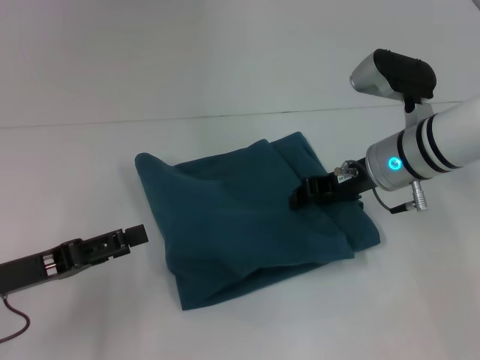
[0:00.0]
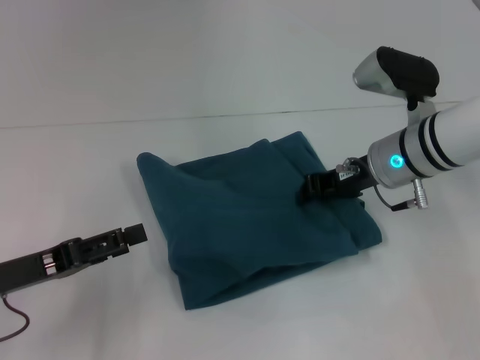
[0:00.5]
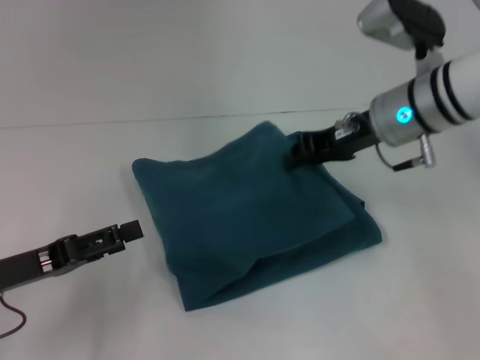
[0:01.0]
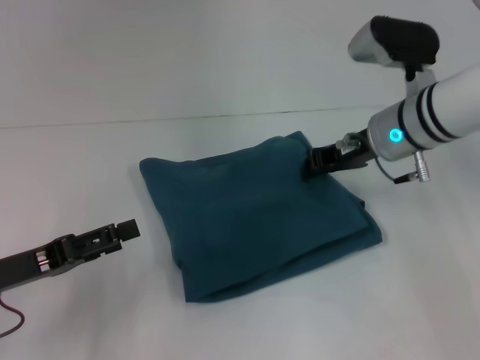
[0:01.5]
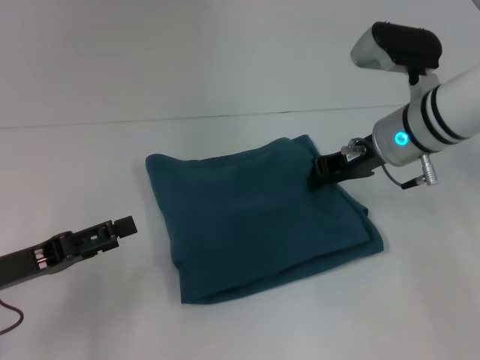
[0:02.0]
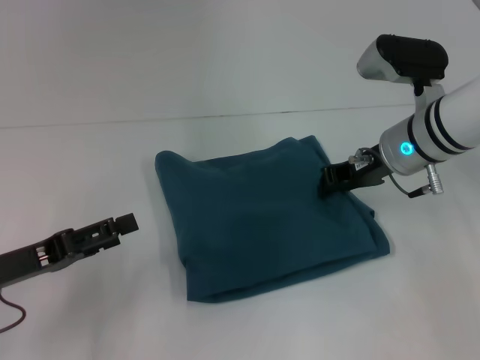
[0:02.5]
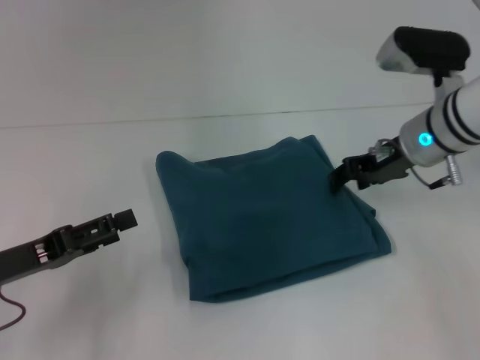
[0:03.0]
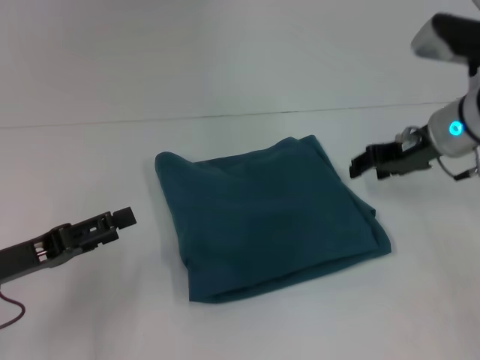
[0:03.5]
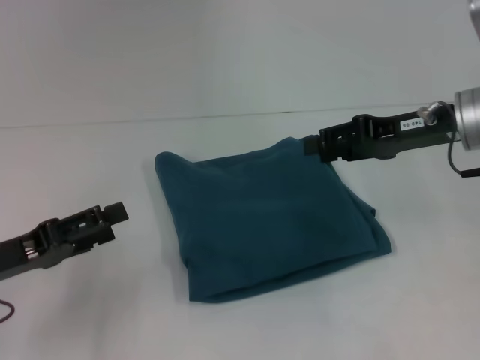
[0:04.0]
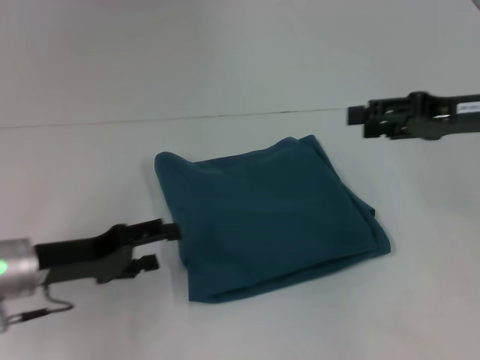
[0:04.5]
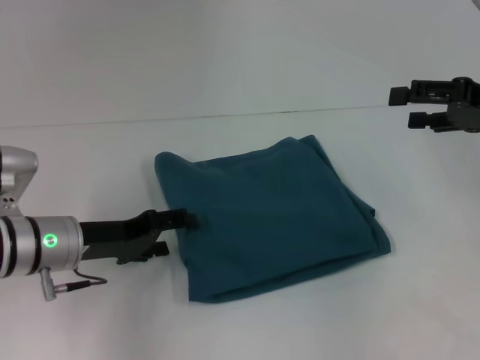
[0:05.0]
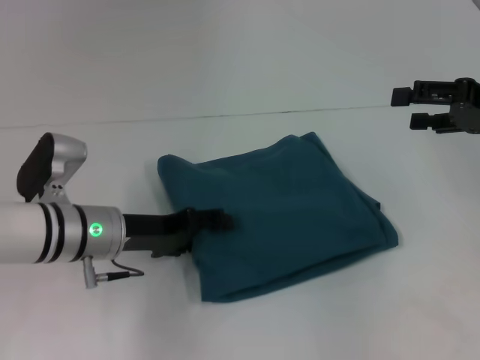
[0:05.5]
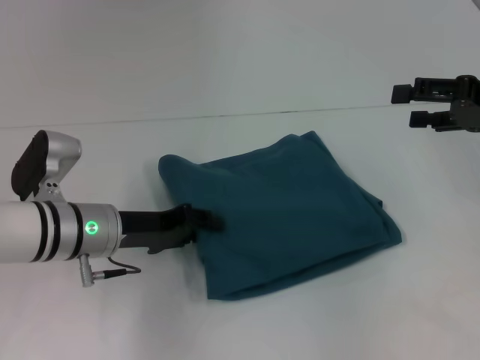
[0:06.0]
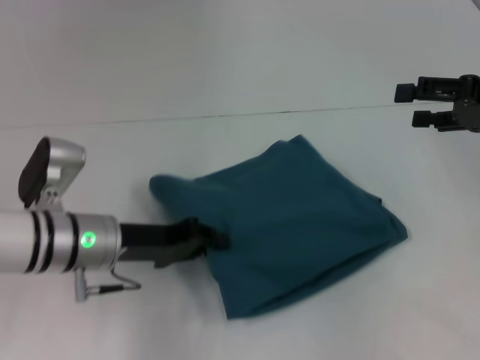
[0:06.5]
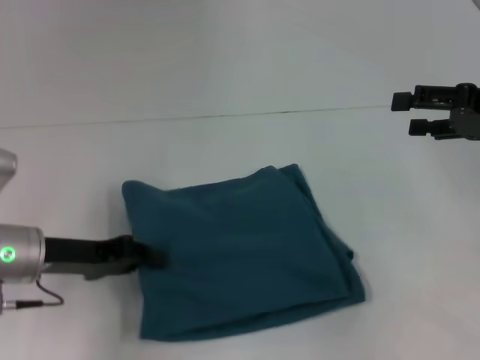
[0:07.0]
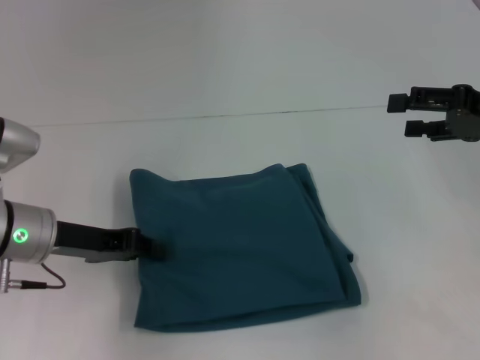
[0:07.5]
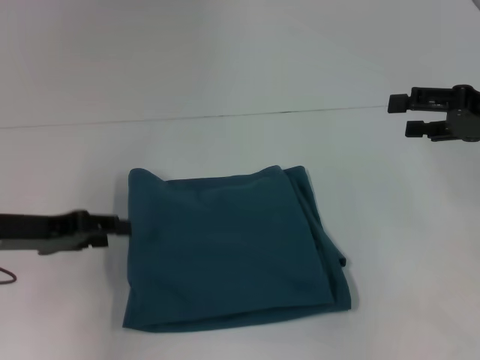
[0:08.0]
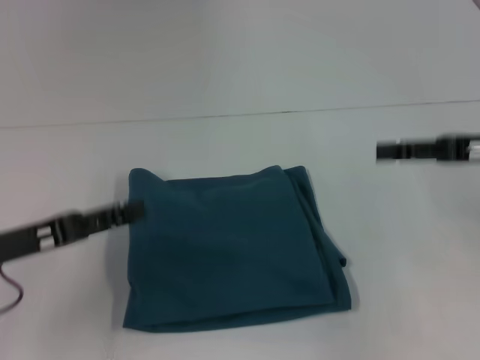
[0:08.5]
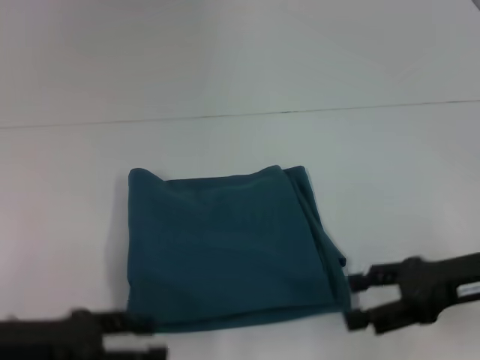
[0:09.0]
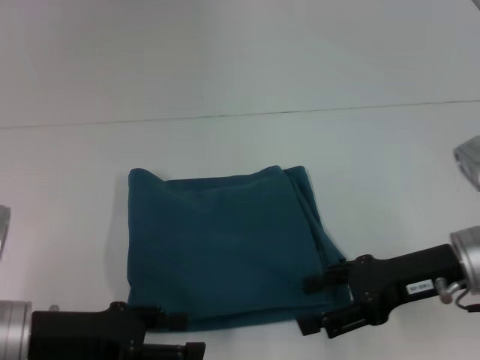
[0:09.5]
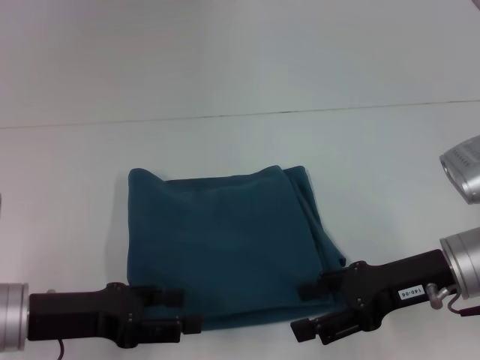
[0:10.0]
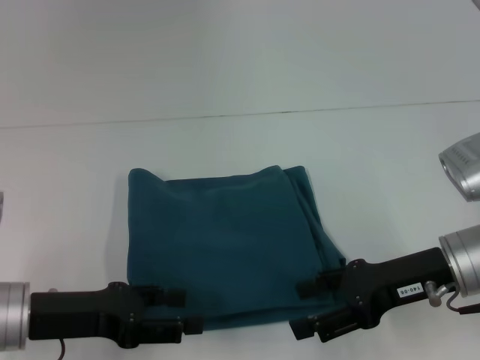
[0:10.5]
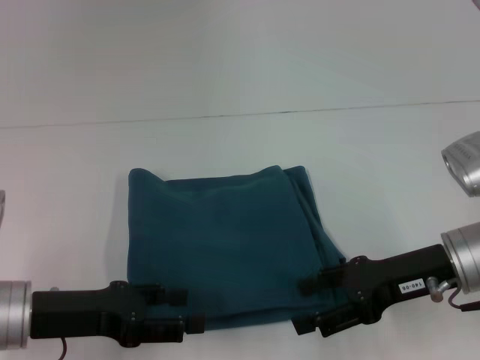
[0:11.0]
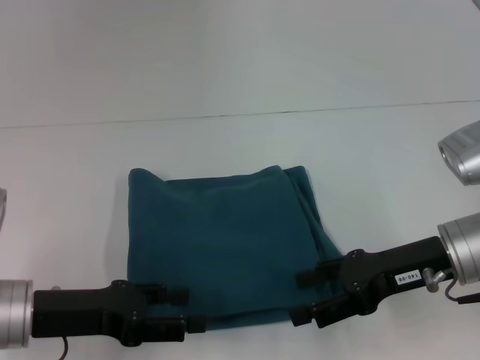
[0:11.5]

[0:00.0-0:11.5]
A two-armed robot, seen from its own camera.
0:00.0 to 0:02.0: The right gripper closes up.
0:02.0 to 0:04.0: The right gripper heads to the right, covering approximately 5 cm, and opens.
0:04.0 to 0:06.0: The right gripper shifts approximately 10 cm to the right, and opens; the left gripper is displaced to the right and forward by roughly 15 cm, and closes up.
0:06.0 to 0:07.5: The left gripper goes approximately 5 cm to the left, and closes its fingers.
0:07.5 to 0:09.5: The left gripper is displaced backward by approximately 10 cm, and opens. The right gripper goes some 15 cm to the left, downward and backward.
0:09.5 to 0:11.5: The two grippers keep their place.

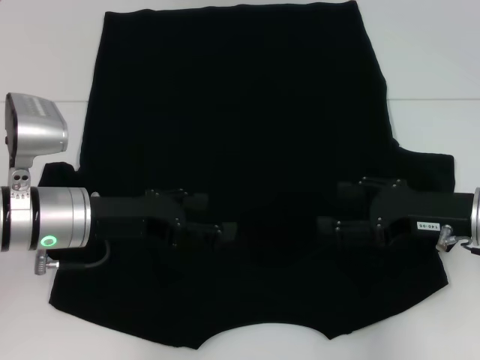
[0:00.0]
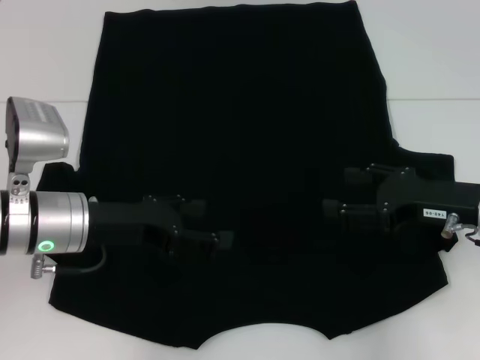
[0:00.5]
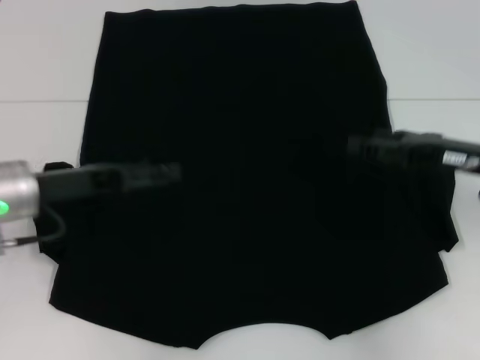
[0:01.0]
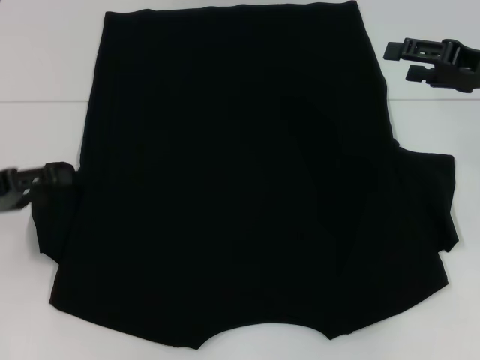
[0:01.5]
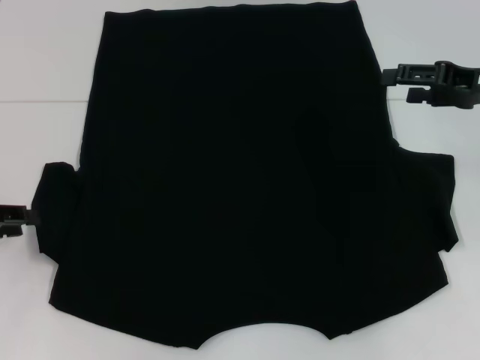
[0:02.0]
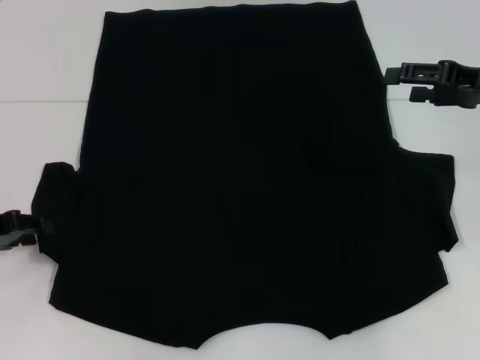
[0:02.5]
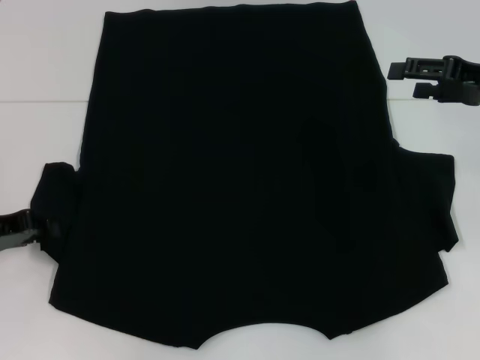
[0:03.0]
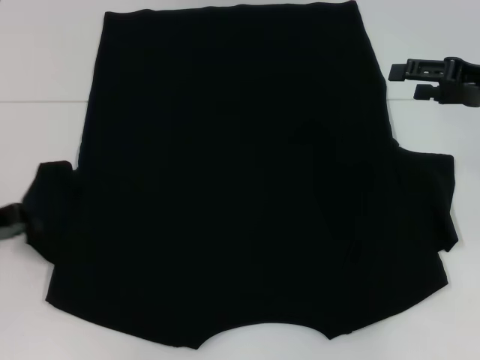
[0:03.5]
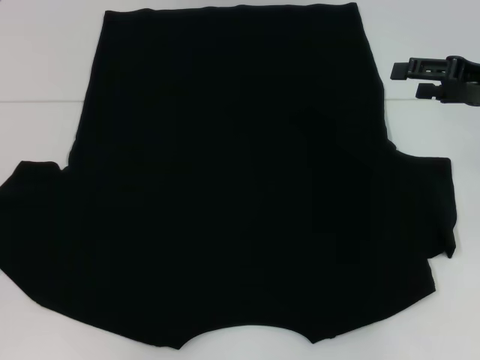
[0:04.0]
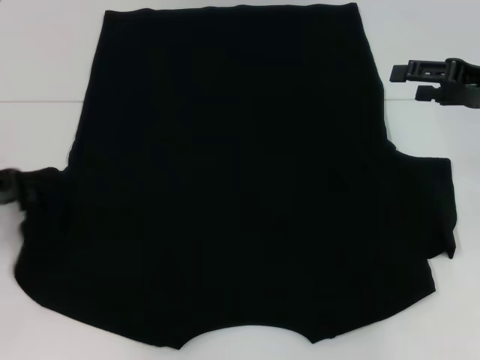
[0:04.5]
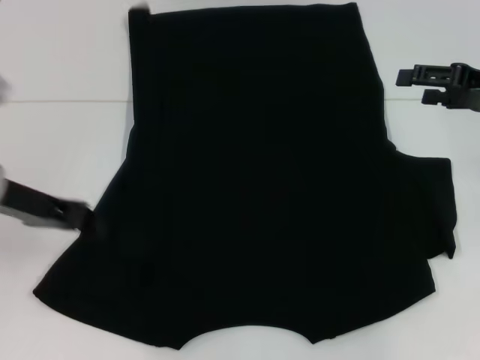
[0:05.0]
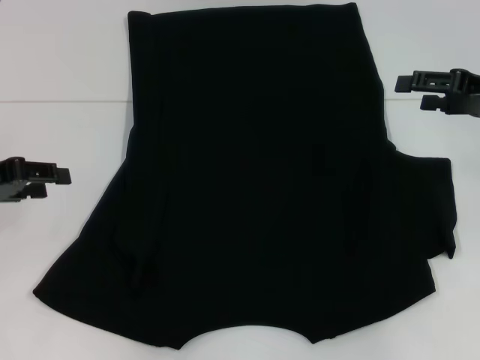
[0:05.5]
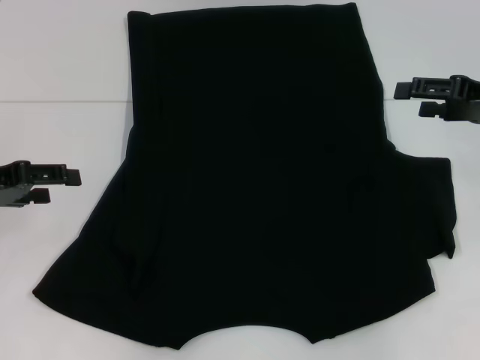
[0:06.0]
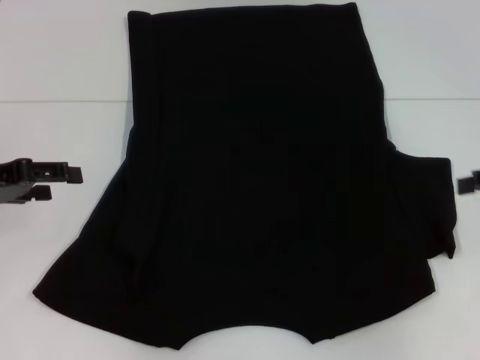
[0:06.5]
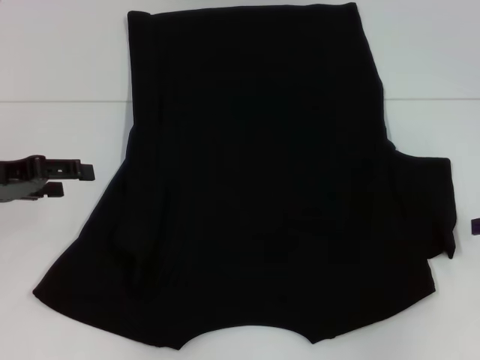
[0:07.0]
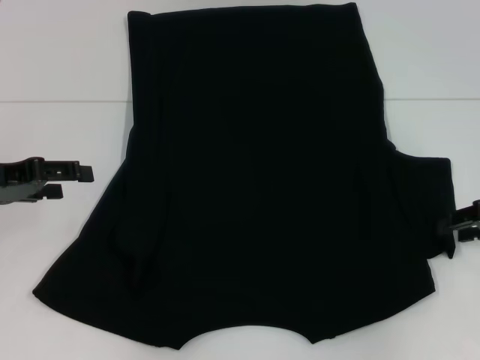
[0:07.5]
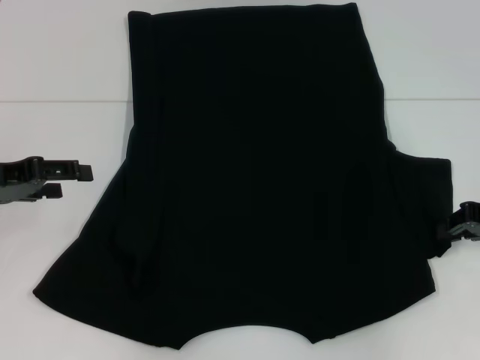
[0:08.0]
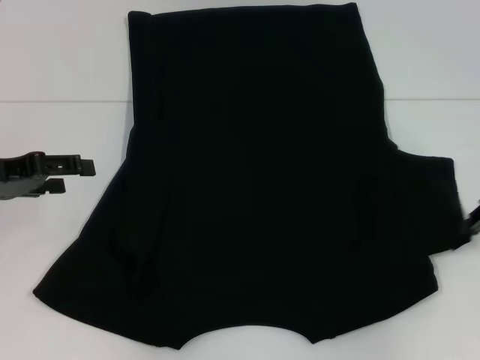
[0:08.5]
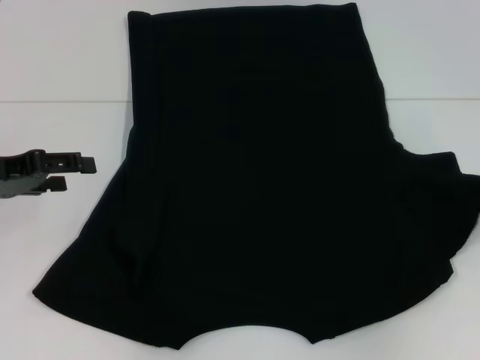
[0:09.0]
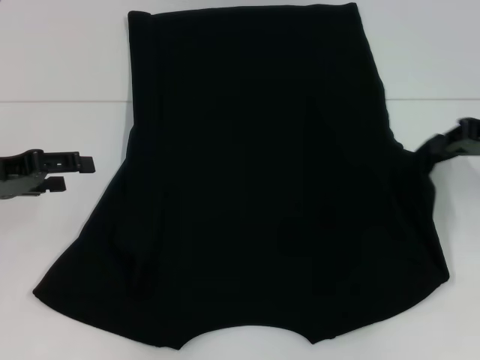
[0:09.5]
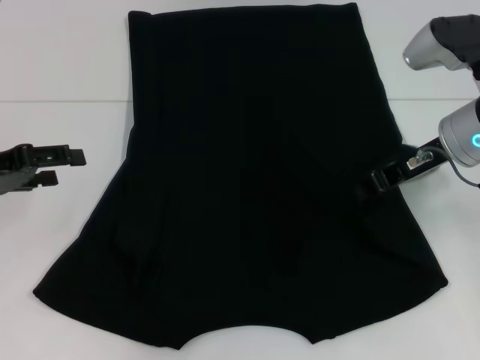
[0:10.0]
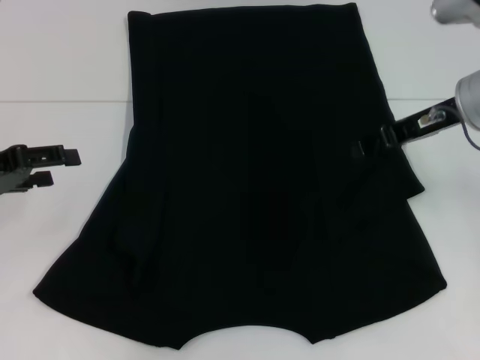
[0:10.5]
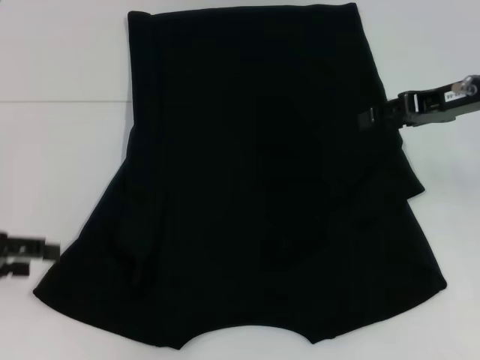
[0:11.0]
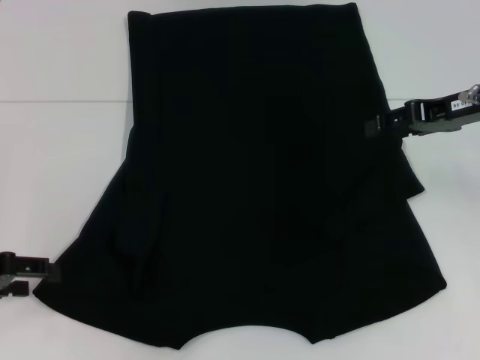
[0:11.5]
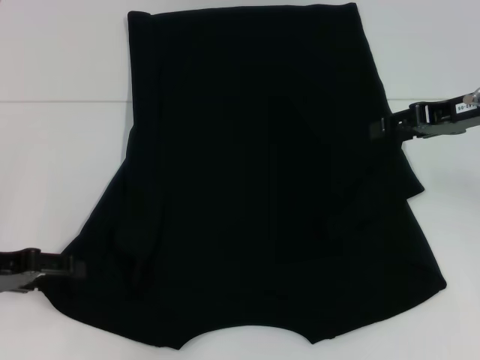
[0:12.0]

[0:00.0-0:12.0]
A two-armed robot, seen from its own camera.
Step, 0:00.0 to 0:05.0: Fold the bottom left sleeve with your left hand.
Step, 0:05.5 to 0:10.0: Fold the bottom right sleeve with your right hand.
0:00.0 to 0:02.0: The right gripper moves upward and forward, some 10 cm. Meanwhile the left gripper heads to the left, covering some 15 cm, and closes its fingers.
0:02.0 to 0:04.0: The left gripper closes its fingers.
0:04.0 to 0:06.0: The left gripper shifts roughly 5 cm to the right, and opens up.
0:06.0 to 0:08.0: The right gripper goes roughly 5 cm downward, and closes up.
0:08.0 to 0:10.0: The right gripper goes approximately 15 cm to the left and upward.
0:10.0 to 0:12.0: The right gripper moves to the right, roughly 5 cm, and opens; the left gripper changes place by roughly 5 cm.

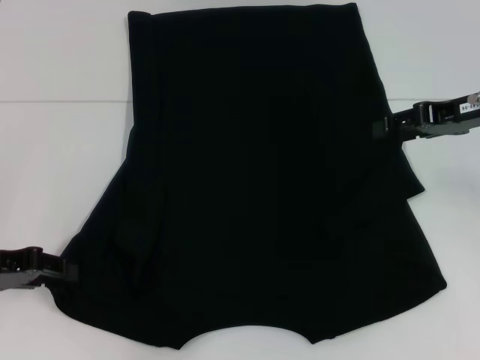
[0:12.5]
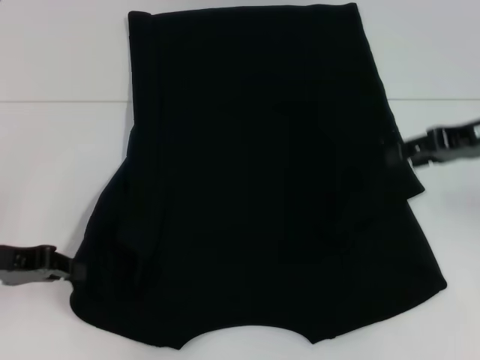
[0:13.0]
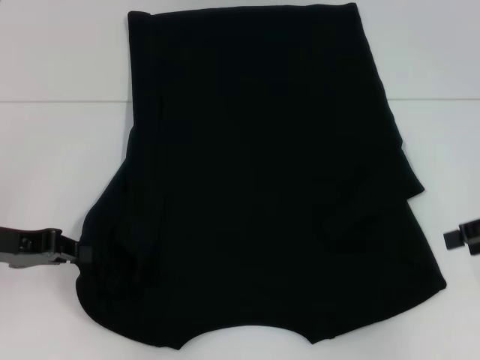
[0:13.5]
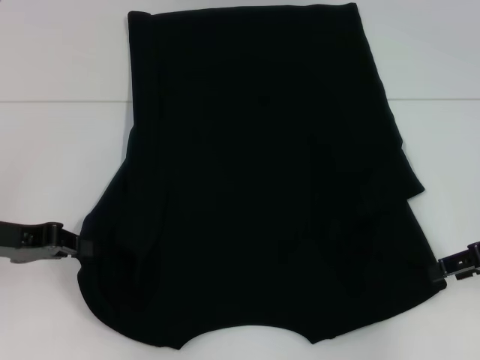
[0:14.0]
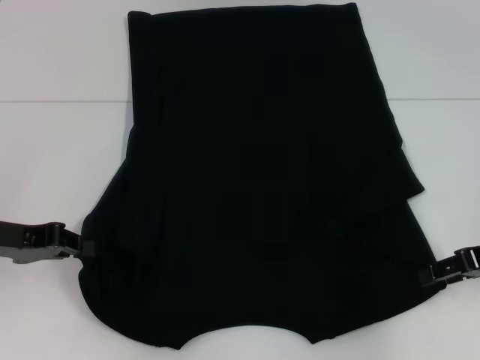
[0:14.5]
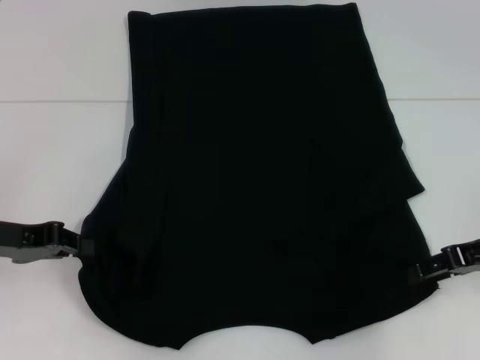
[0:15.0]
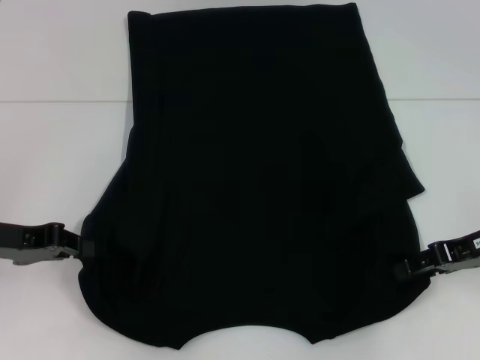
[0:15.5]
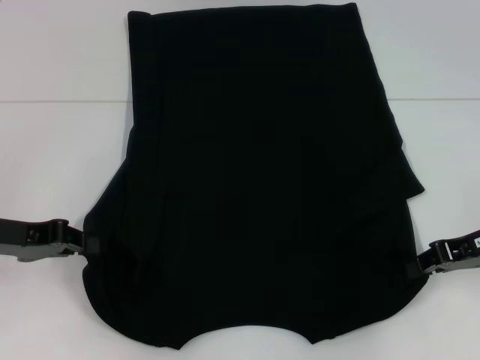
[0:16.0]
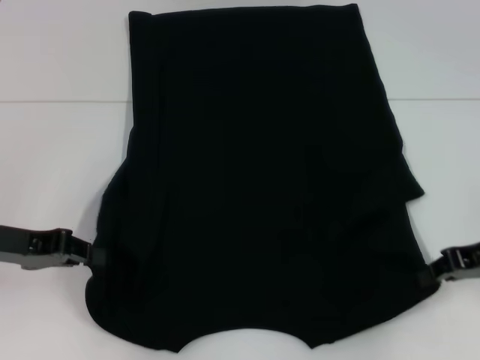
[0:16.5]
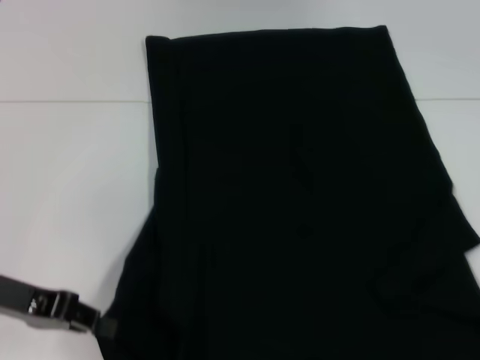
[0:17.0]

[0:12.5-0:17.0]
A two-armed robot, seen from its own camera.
Step, 0:13.5 to 0:16.0: Grab the bottom right corner with your right hand.
0:12.5 to 0:14.5: The right gripper goes some 10 cm backward and downward. The left gripper closes up.
0:14.5 to 0:17.0: The right gripper heads backward and to the right, covering roughly 10 cm, and closes its fingers.
